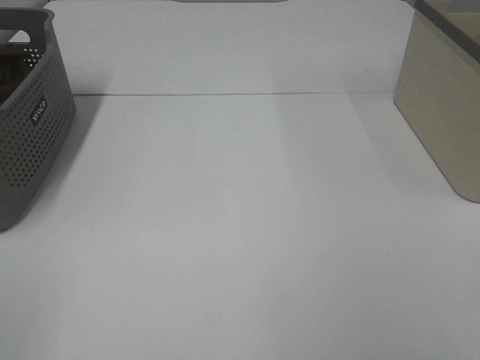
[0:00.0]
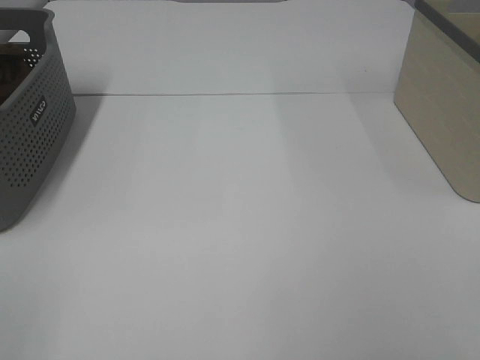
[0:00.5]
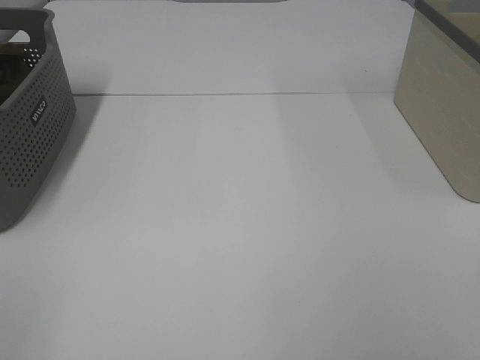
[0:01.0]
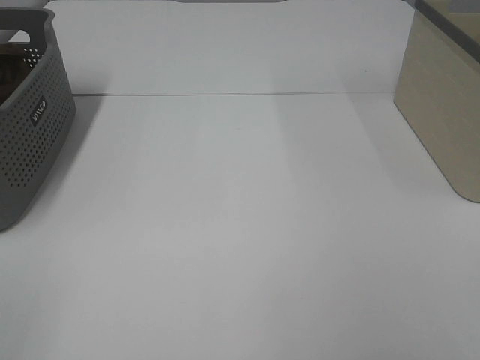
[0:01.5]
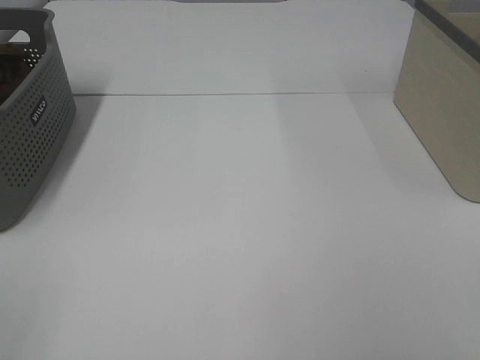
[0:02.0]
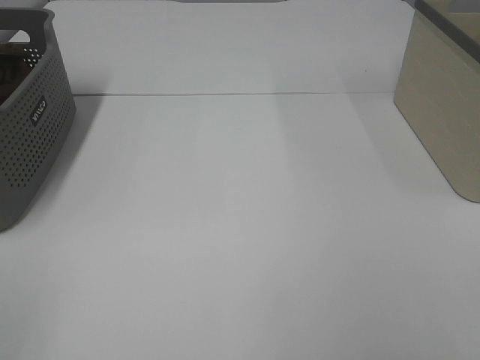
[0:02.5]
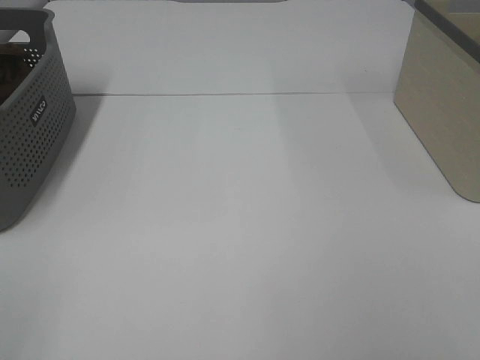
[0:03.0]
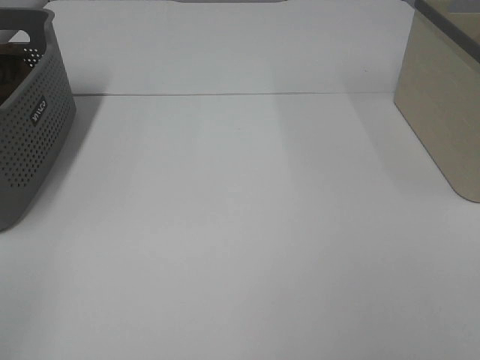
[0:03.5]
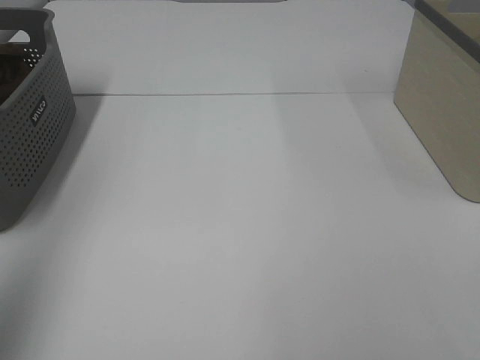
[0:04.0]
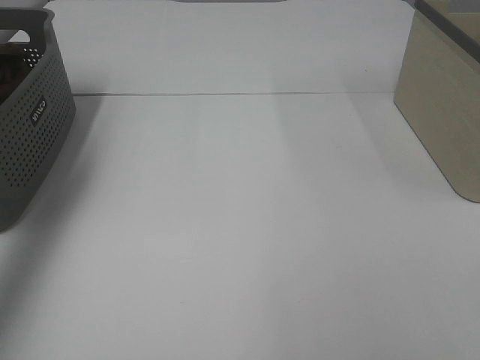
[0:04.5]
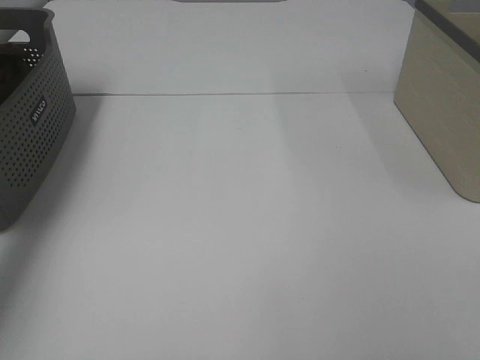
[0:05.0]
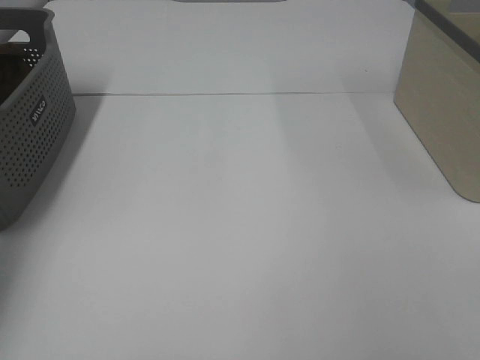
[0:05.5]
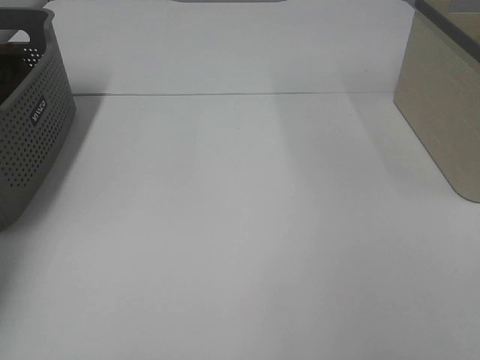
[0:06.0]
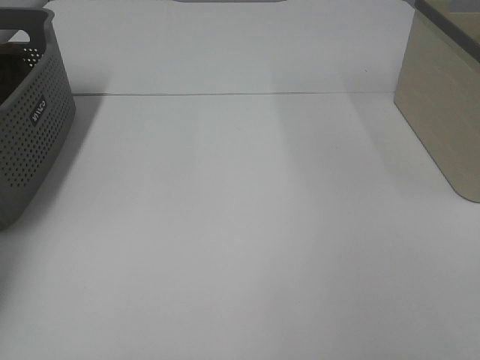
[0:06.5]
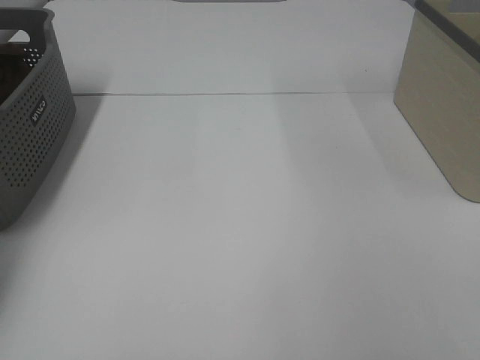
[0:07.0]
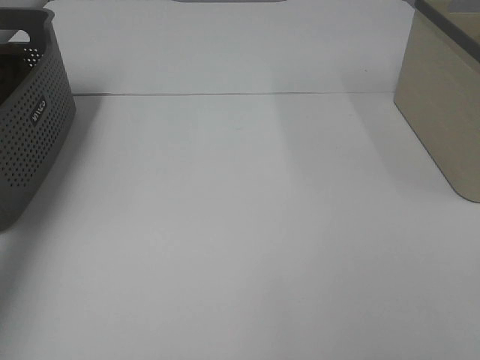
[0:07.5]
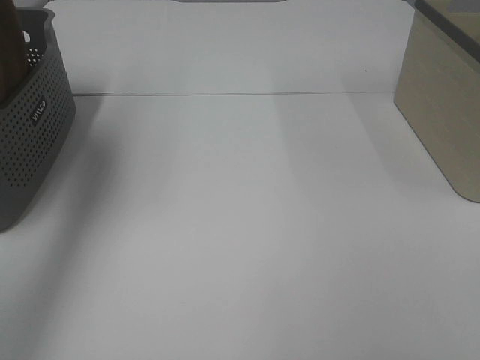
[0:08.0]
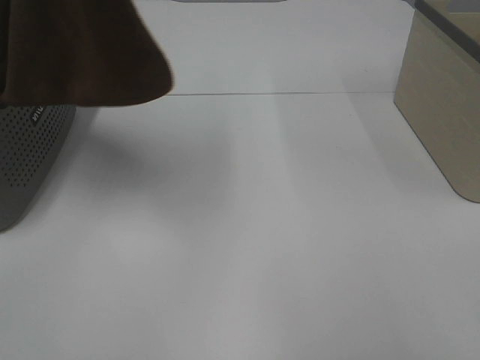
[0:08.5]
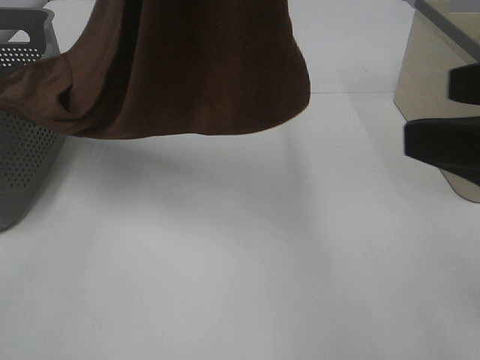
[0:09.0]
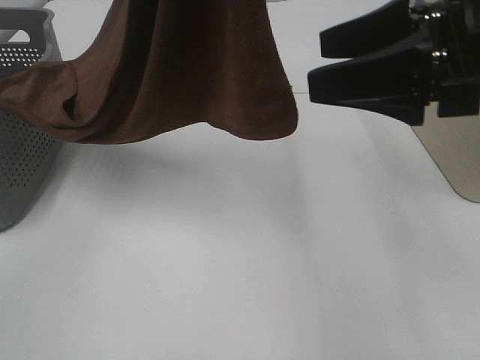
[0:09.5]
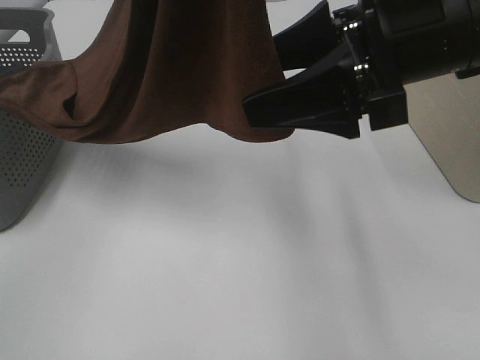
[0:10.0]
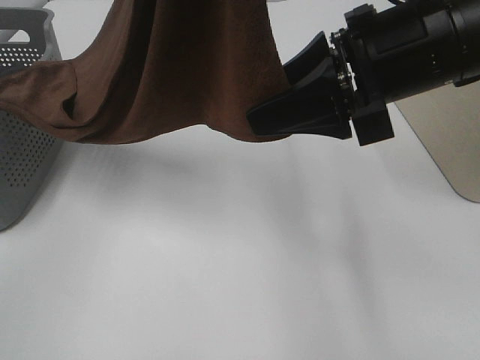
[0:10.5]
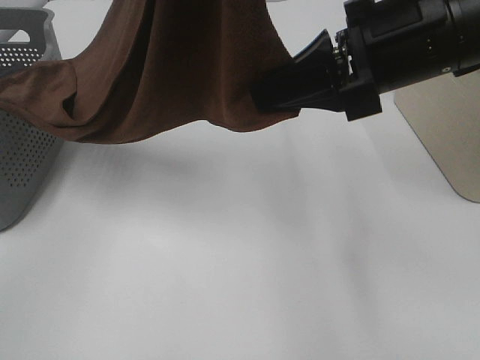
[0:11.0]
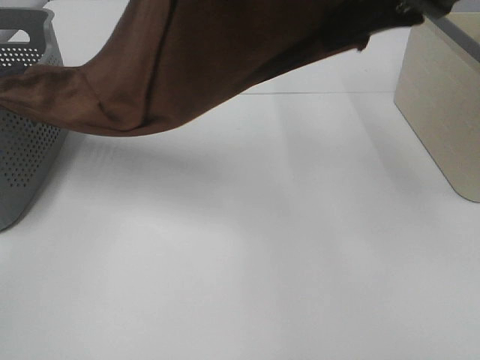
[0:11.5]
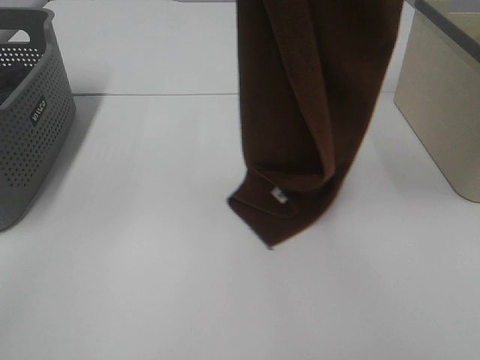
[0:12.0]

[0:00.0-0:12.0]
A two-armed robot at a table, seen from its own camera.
Task of the whole recording: Remove the towel and place it.
Step, 0:07.5 to 0:11.0: Right hand: grab a corner of the brown towel and straighten it.
0:00.0 to 0:02.0: Neither gripper changes place.
0:02.0 to 0:04.0: The left gripper is displaced upward and forward by roughly 20 cm.
0:04.0 to 0:06.0: The left gripper is displaced forward and downward by about 40 cm.
0:06.0 to 0:08.0: The left gripper shifts approximately 35 cm upward, to the right and backward, and closes.
0:08.0 to 0:10.0: The left gripper heads to the right and backward, covering roughly 20 cm; the right gripper shifts approximately 30 cm forward and to the left.
0:10.0 to 0:12.0: The right gripper moves upward, approximately 20 cm, and closes.

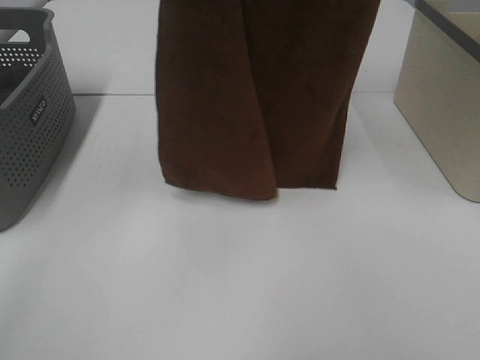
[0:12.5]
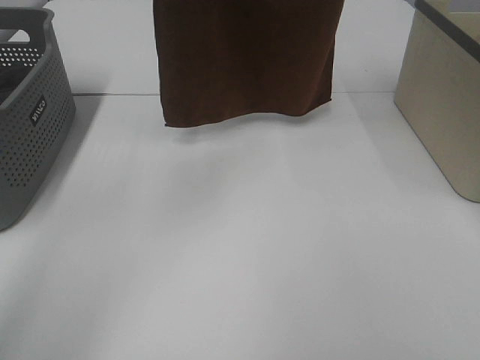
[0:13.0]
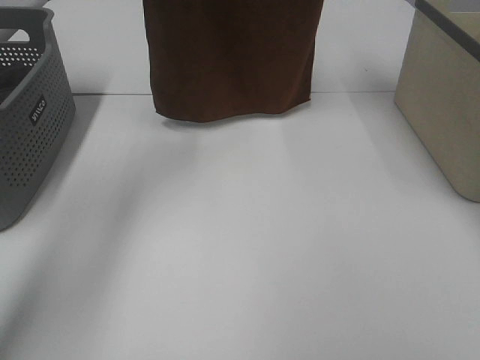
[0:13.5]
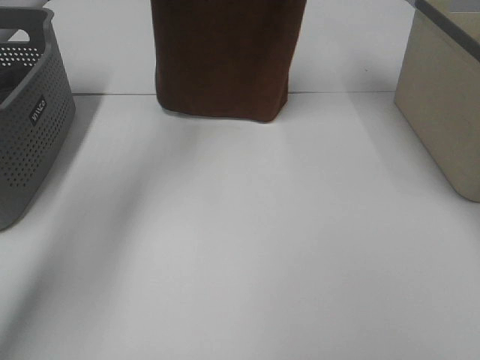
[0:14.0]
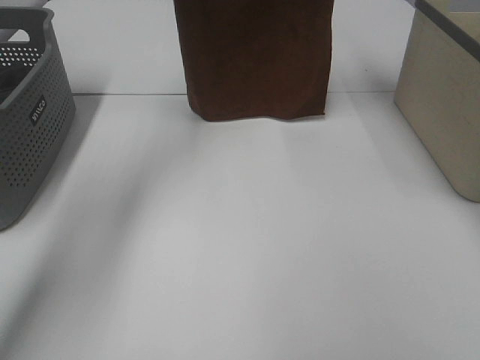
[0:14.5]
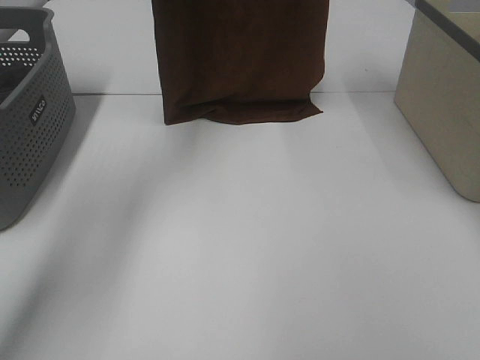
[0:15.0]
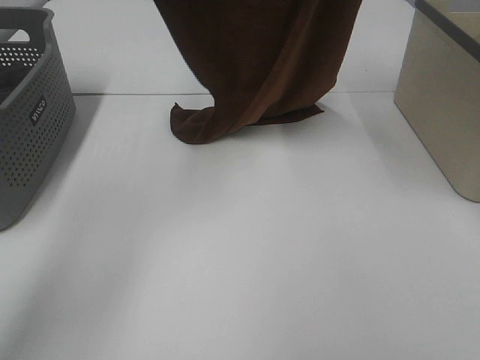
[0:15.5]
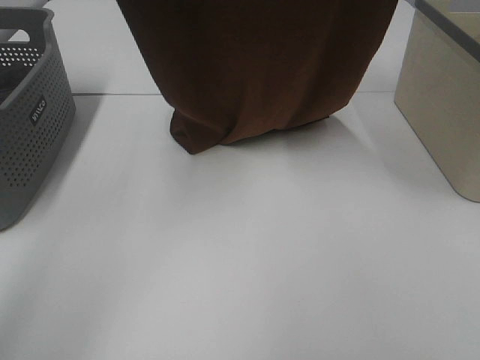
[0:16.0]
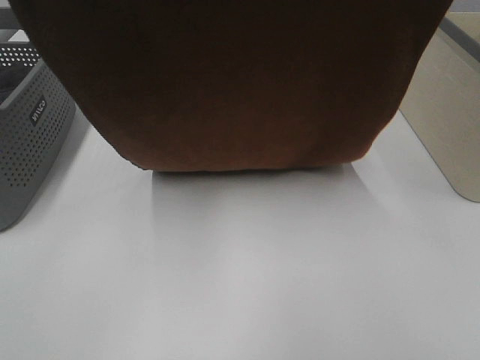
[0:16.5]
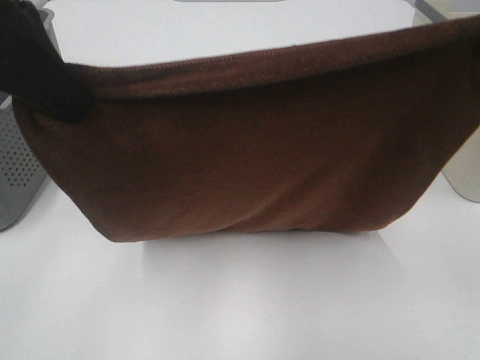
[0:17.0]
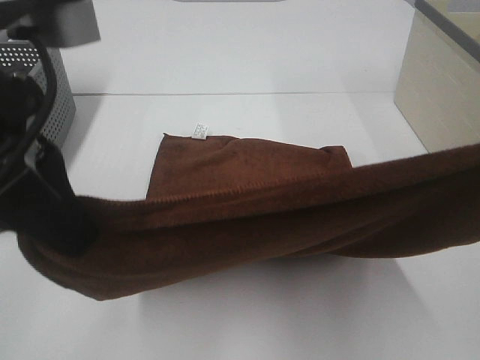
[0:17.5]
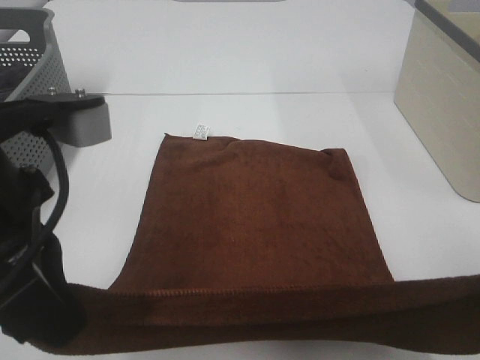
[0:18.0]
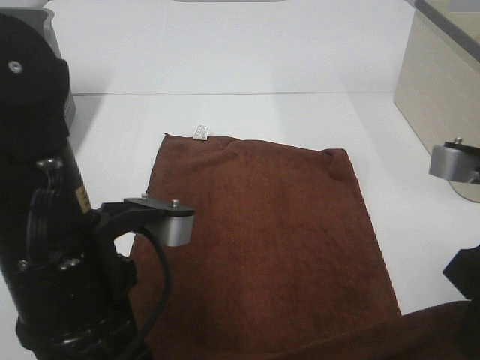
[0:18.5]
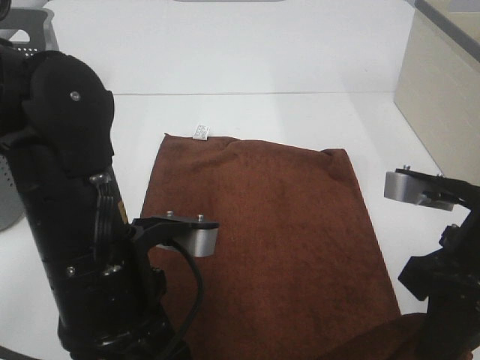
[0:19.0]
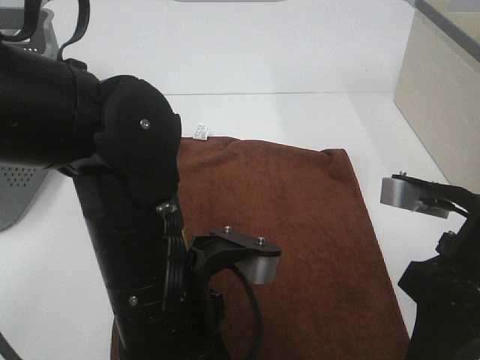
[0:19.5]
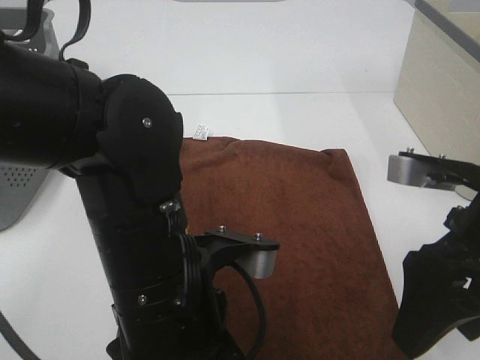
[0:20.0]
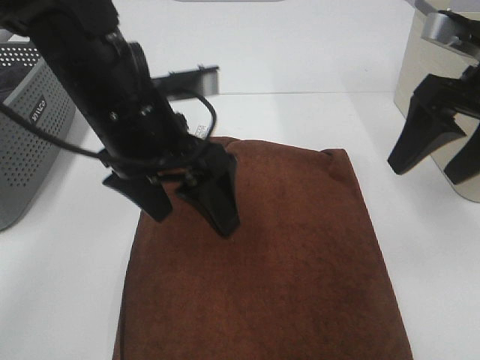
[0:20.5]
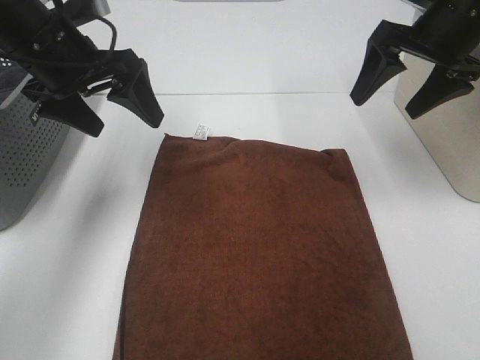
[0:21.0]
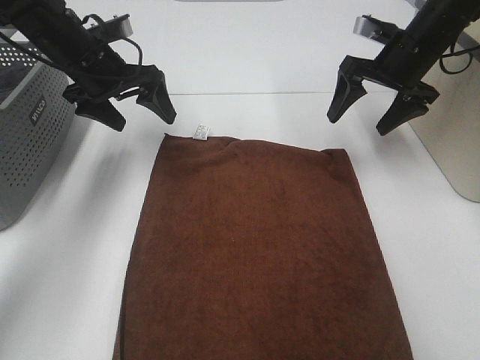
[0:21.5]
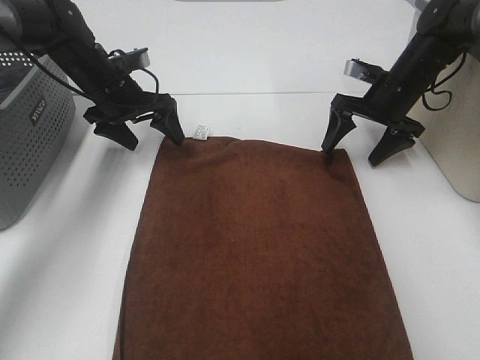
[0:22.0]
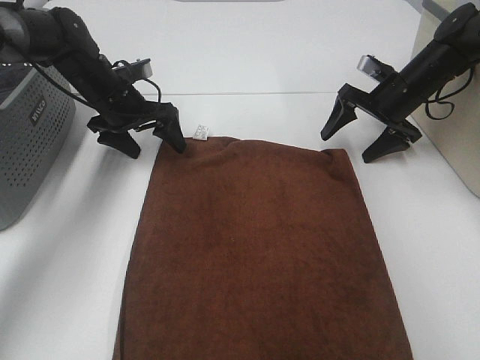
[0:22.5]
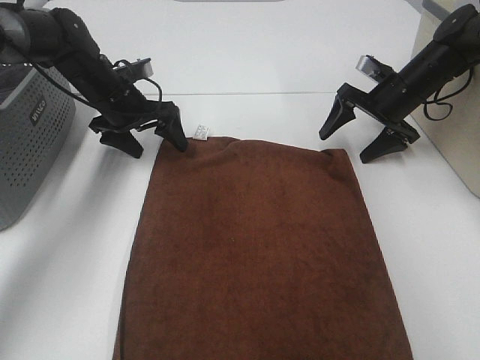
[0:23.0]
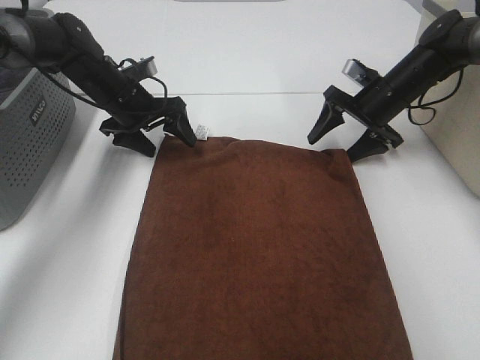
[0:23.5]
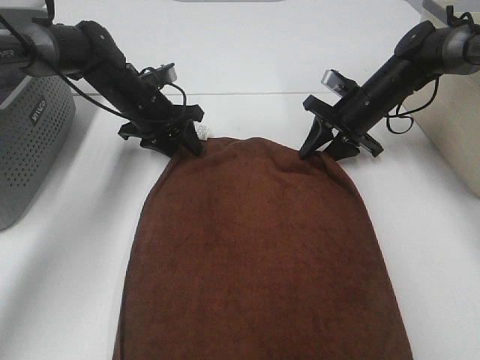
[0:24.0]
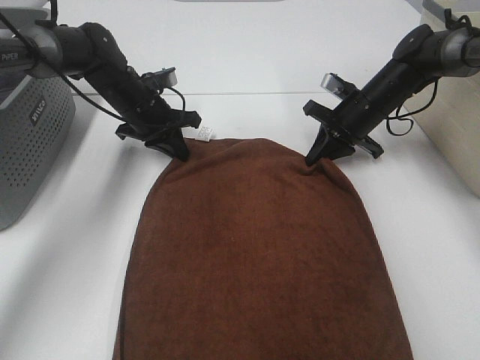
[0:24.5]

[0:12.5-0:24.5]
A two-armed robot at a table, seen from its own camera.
Task of the whole recording: Remove the towel and place it.
Step, 0:12.5 to 0:15.5: Left hand: spread the brown towel flat on the table.
Step, 0:12.5 to 0:15.5: Right hand: spread the brown towel flat on the table.
0:12.5 to 0:14.5: The right gripper shifts some 10 cm forward. Meanwhile the left gripper moves forward and downward, about 20 cm.
0:14.5 to 0:16.5: Both grippers move backward, some 25 cm.
0:16.5 to 0:18.5: Both grippers move downward and backward, roughly 25 cm.
0:18.5 to 0:20.5: The two grippers go some 10 cm forward. The left gripper opens up; the right gripper opens up.
0:20.5 to 0:22.5: The left gripper goes about 25 cm forward, downward and to the left, while the right gripper is displaced forward and downward by some 25 cm.
0:22.5 to 0:24.5: The right gripper moves to the left, some 5 cm, and closes its fingers. The left gripper closes its fingers.

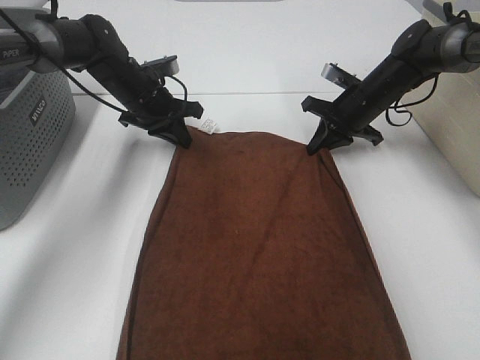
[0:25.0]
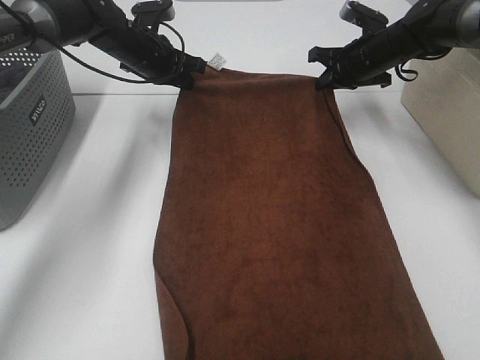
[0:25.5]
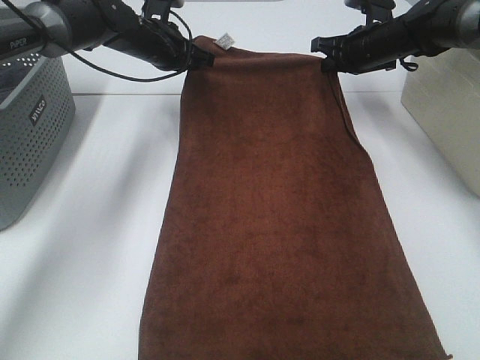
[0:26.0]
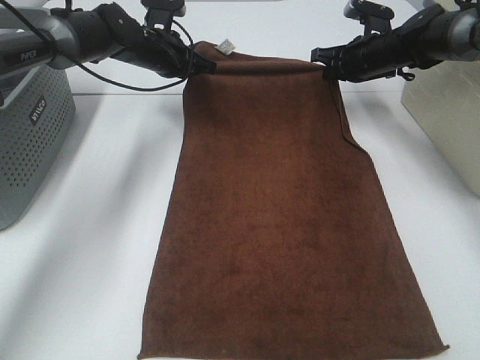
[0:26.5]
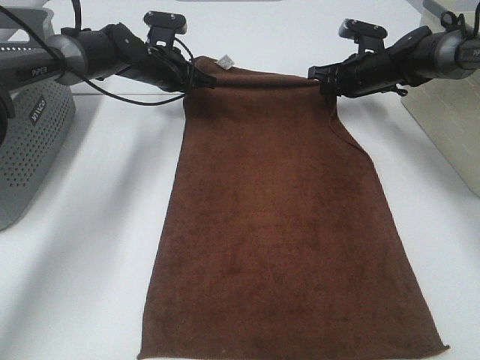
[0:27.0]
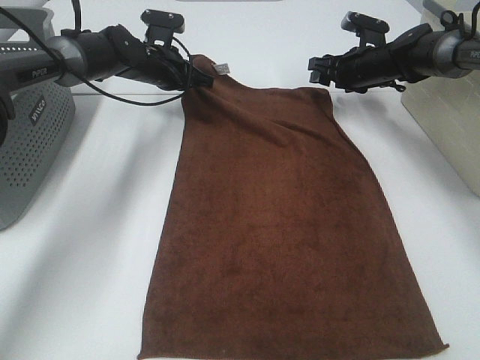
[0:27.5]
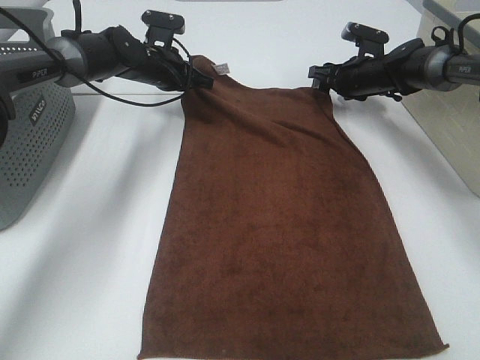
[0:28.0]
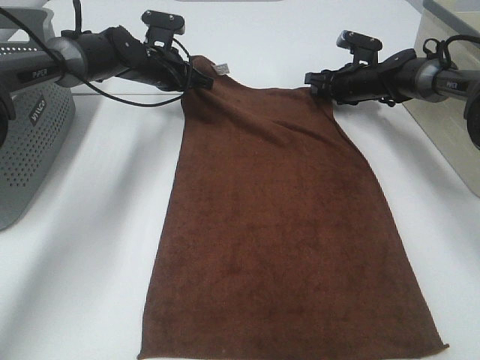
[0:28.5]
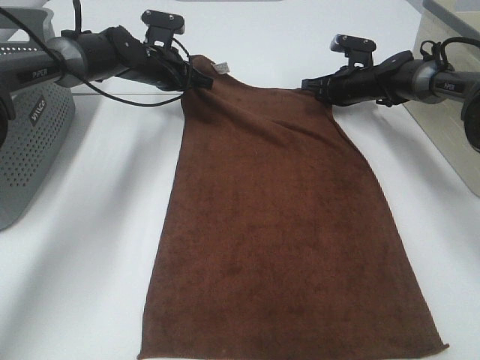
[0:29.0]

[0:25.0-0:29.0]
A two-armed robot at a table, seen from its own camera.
Task of the whole recording: Remove the towel and place it.
0:25.0 to 0:27.0: The grippers both shift forward by some 5 cm.
0:27.0 to 0:29.0: The right gripper ends up roughly 5 cm from where it was, and opens, then closes once more.
